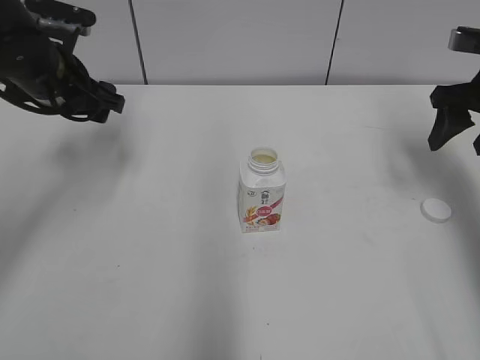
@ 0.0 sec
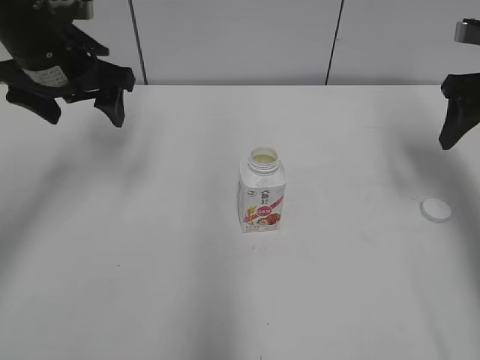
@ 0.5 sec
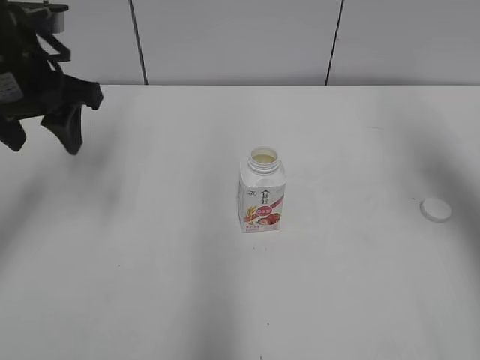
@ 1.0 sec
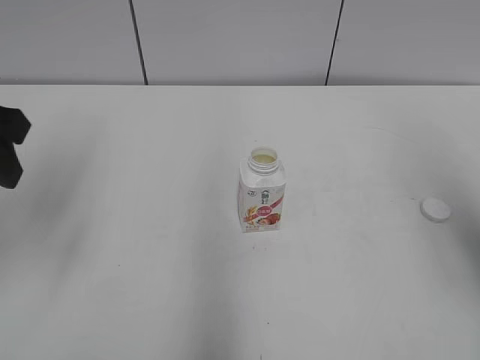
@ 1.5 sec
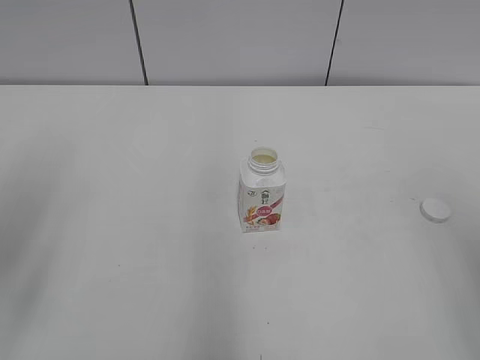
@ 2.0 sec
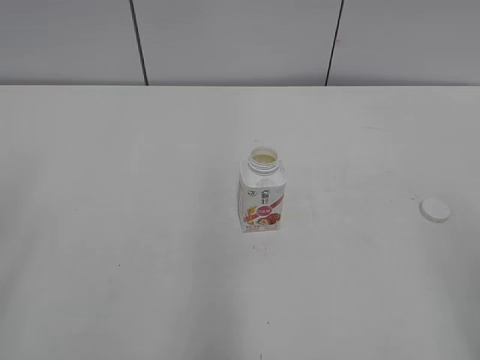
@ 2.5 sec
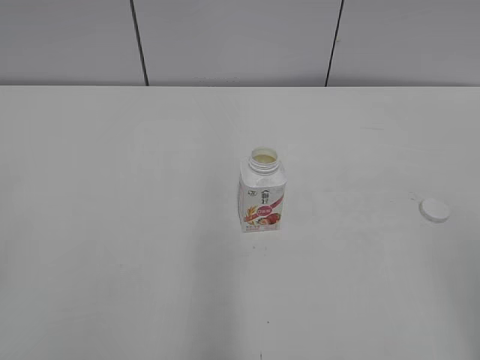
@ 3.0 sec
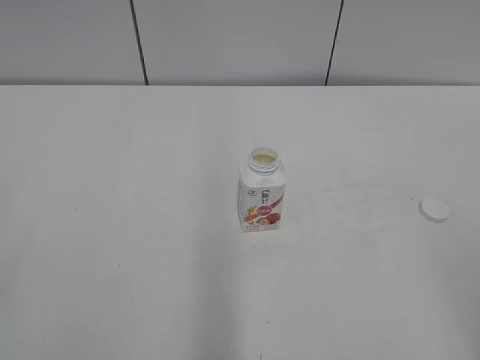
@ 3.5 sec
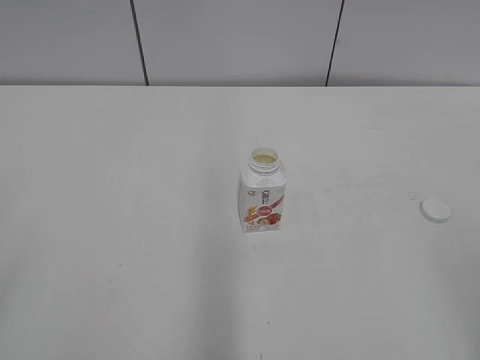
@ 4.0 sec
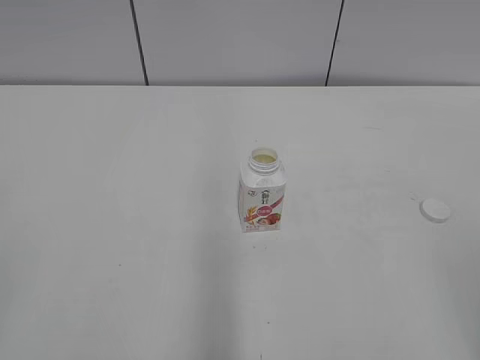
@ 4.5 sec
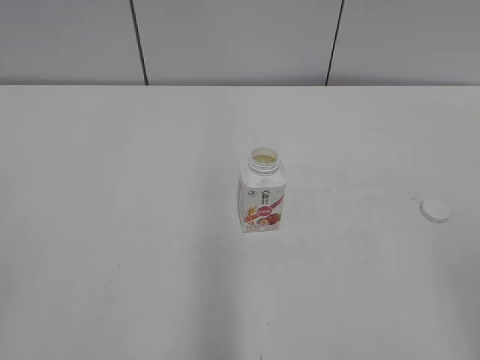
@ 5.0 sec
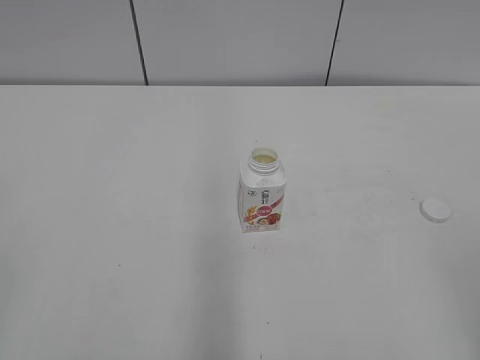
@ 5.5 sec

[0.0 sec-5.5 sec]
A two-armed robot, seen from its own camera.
0.0 sec to 2.0 sec: Both grippers travel together backward, some 25 cm. The left gripper closes its fingers.

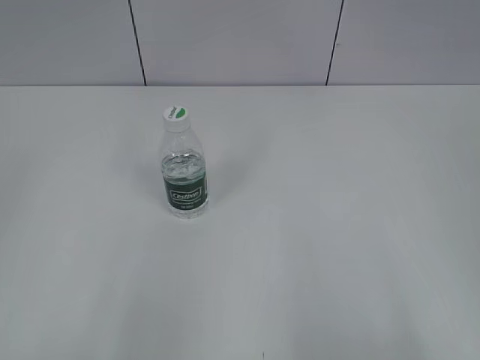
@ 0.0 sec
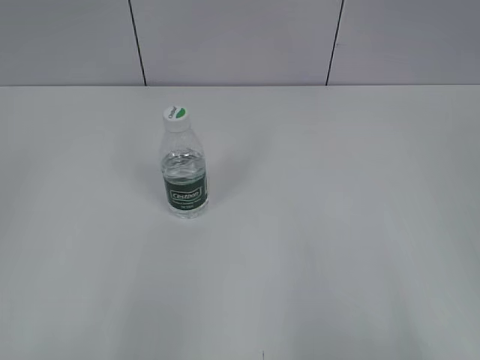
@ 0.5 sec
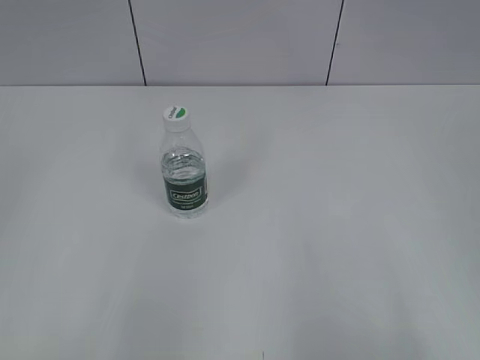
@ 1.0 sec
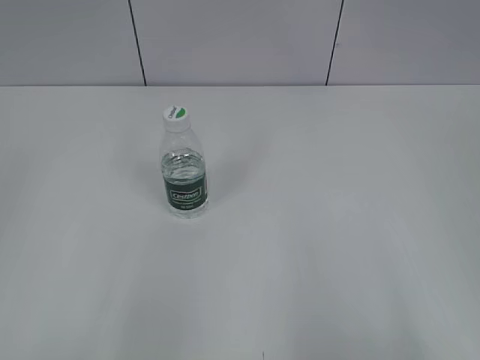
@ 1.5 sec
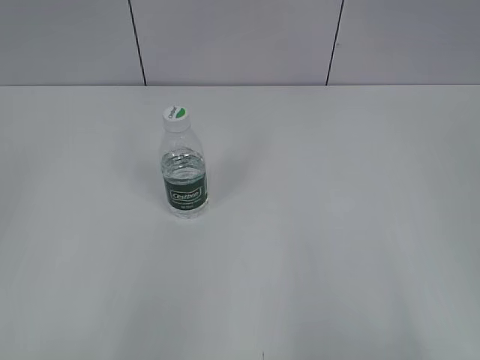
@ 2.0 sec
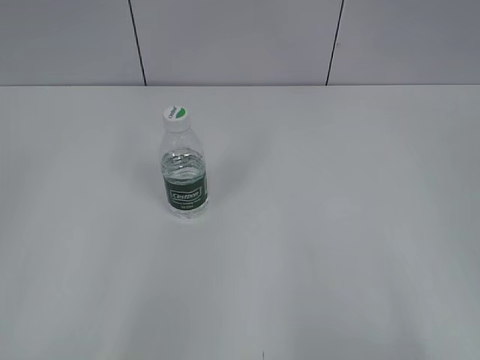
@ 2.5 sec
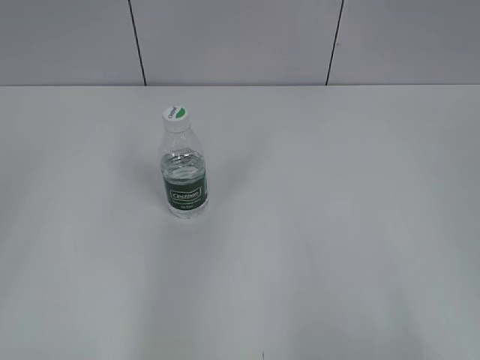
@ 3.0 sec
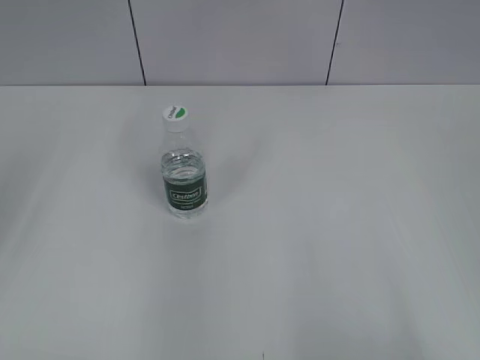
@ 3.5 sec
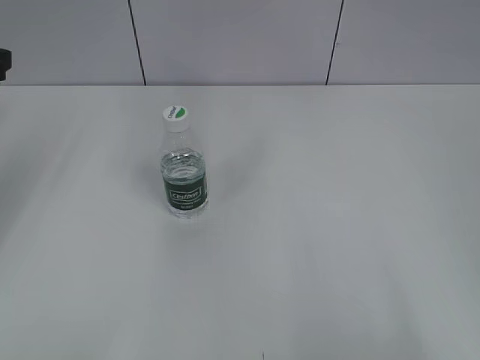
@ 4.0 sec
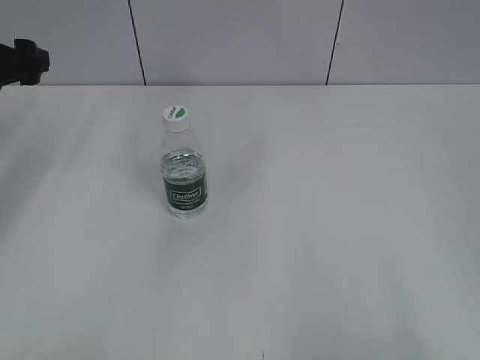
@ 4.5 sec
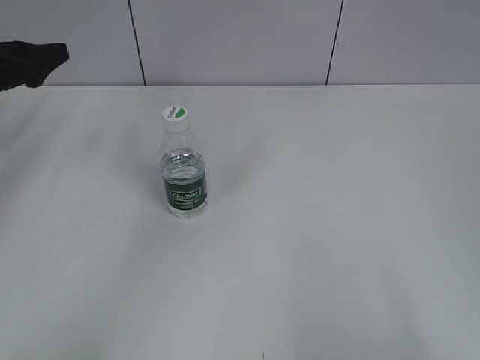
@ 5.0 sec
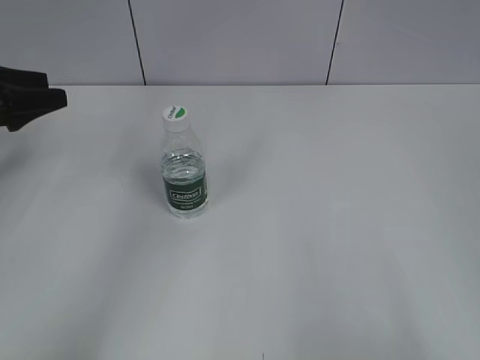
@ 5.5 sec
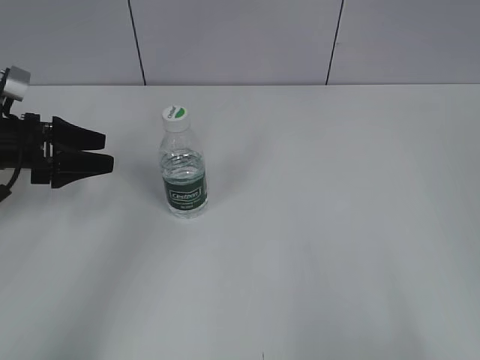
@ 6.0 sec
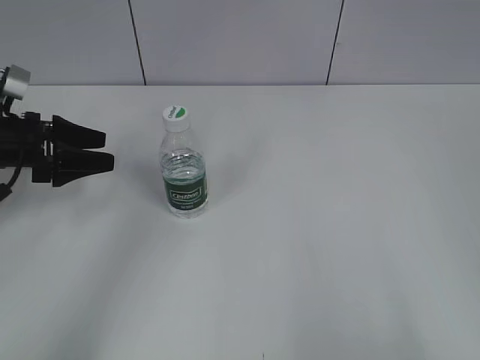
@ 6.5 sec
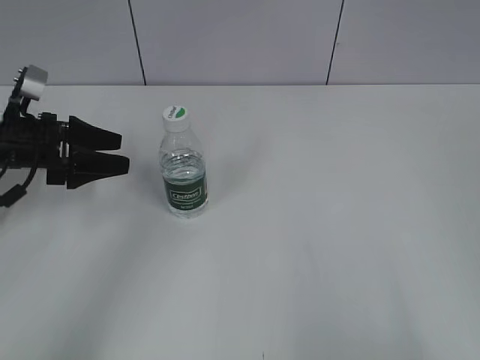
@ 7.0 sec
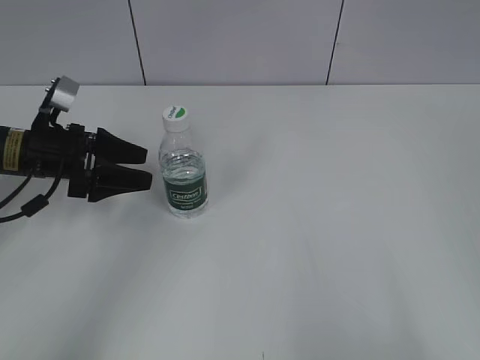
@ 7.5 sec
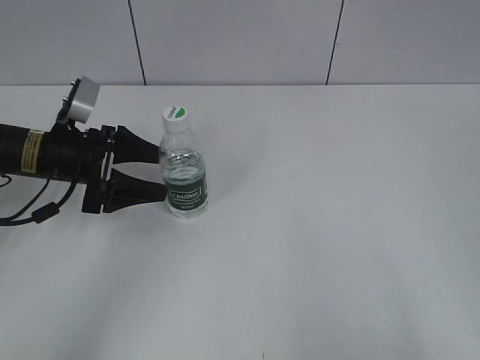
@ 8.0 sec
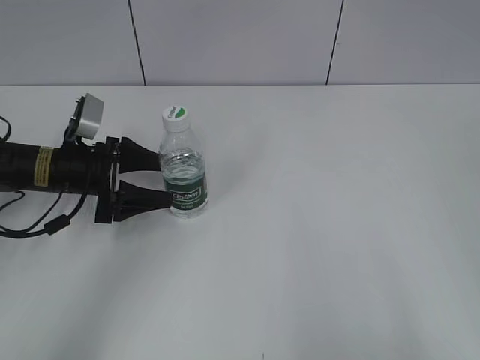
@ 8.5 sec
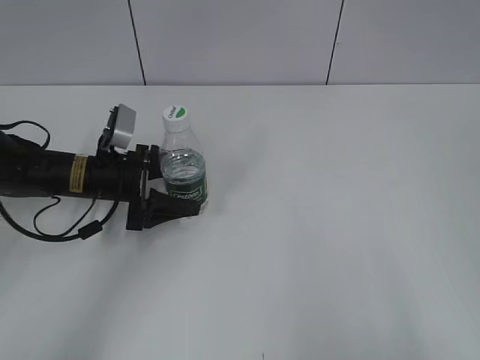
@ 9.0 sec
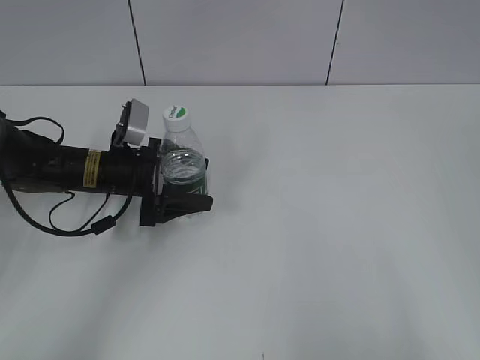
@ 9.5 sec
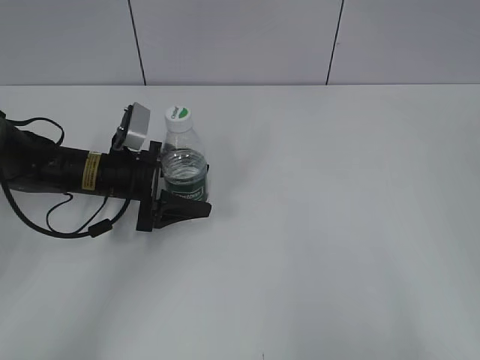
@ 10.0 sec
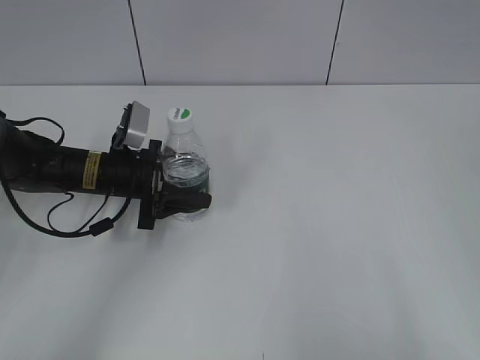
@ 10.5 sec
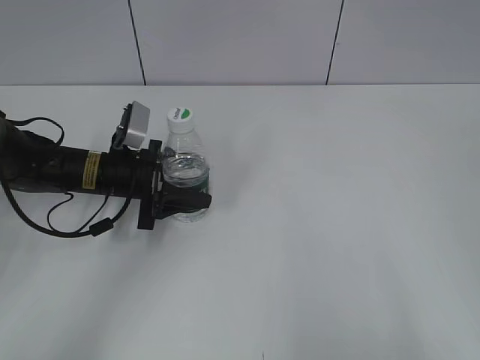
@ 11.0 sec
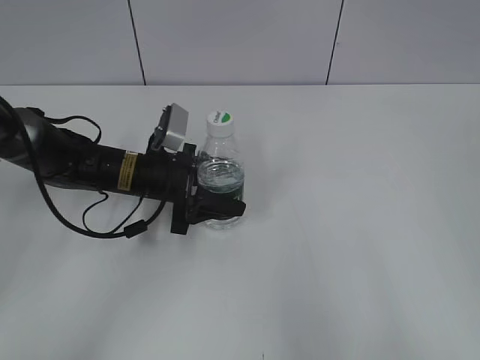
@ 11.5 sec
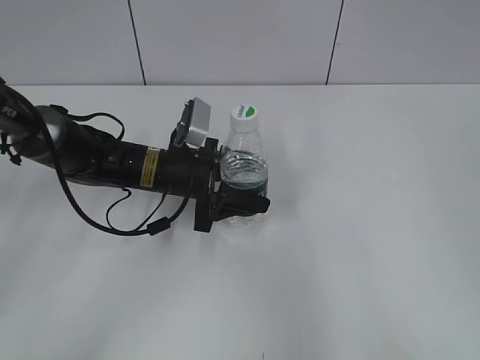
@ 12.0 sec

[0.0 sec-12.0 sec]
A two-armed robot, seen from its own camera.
Step, 0.0 sec to 10.5 sec: Grasp the bottle and move it to the center of the table with the left gripper.
4.0 sec to 6.0 sec: The left gripper goes roughly 15 cm downward and forward.
6.0 sec to 8.0 sec: The left gripper shifts approximately 10 cm to the right.
8.0 sec to 10.0 sec: The left gripper shifts some 5 cm to the right.
10.0 sec to 12.0 sec: The left gripper goes about 10 cm to the right, and closes its fingers.

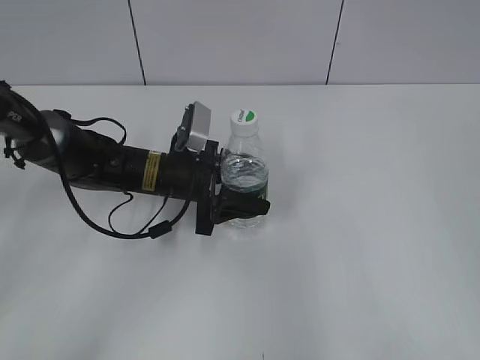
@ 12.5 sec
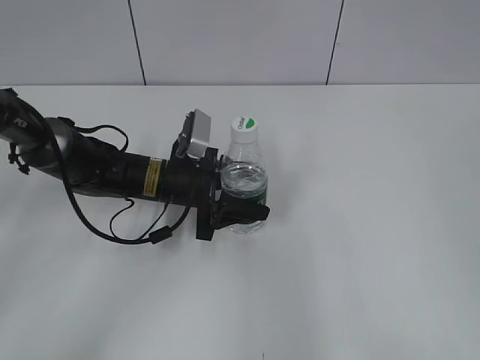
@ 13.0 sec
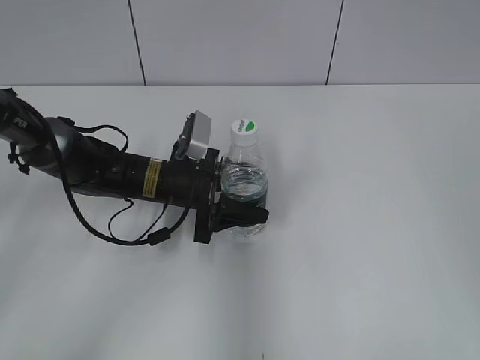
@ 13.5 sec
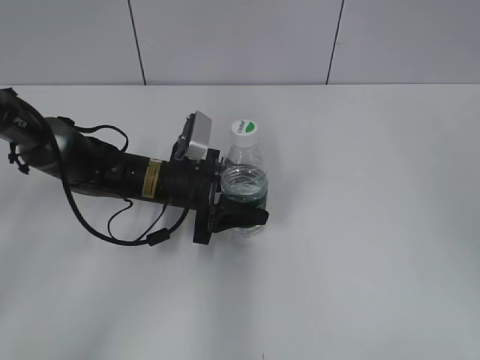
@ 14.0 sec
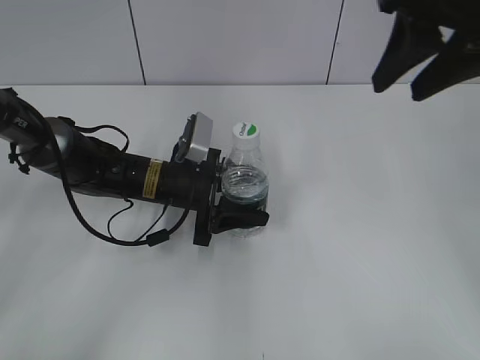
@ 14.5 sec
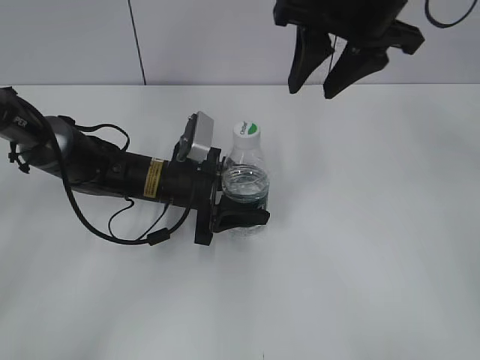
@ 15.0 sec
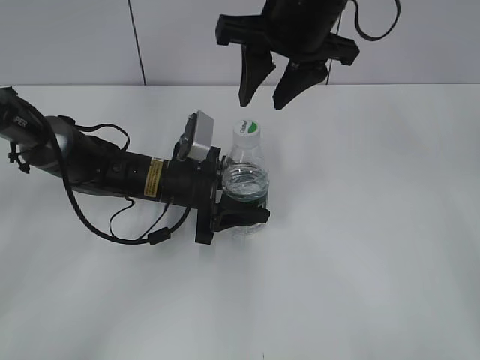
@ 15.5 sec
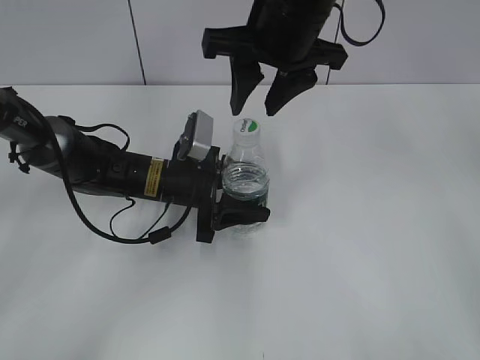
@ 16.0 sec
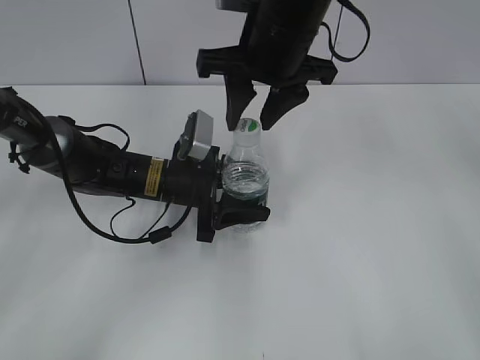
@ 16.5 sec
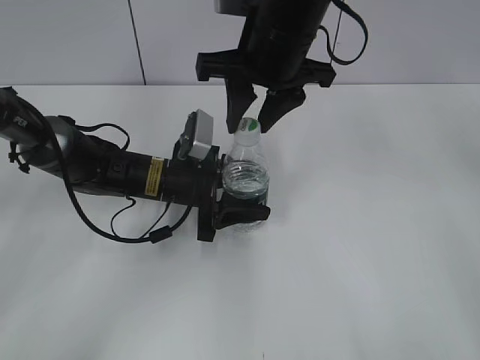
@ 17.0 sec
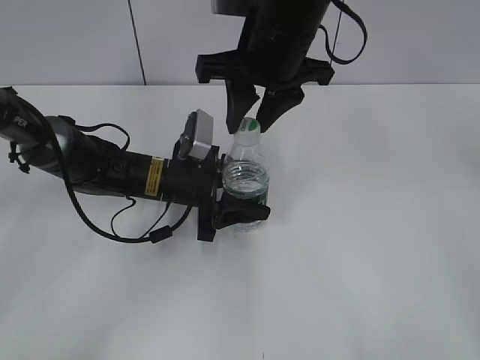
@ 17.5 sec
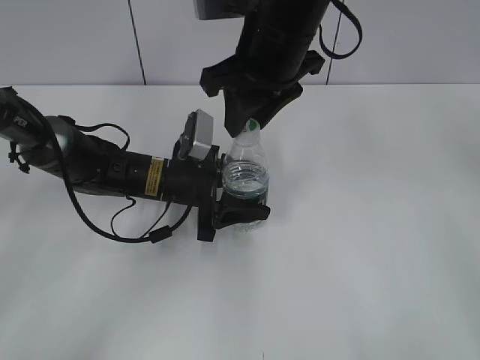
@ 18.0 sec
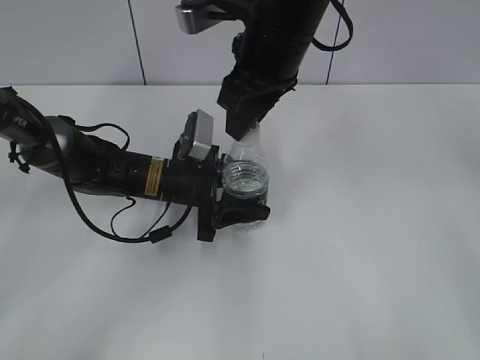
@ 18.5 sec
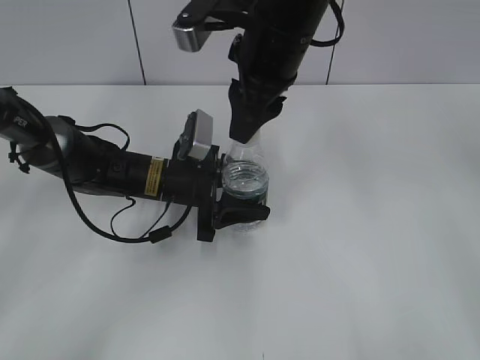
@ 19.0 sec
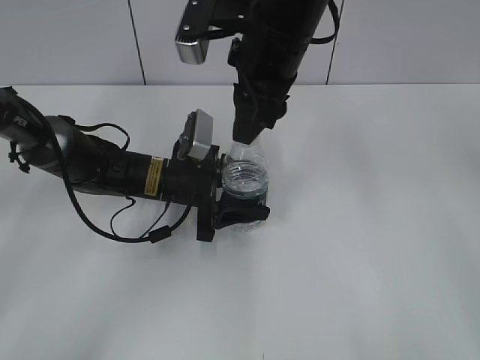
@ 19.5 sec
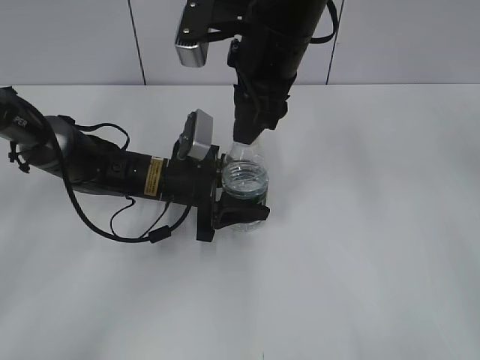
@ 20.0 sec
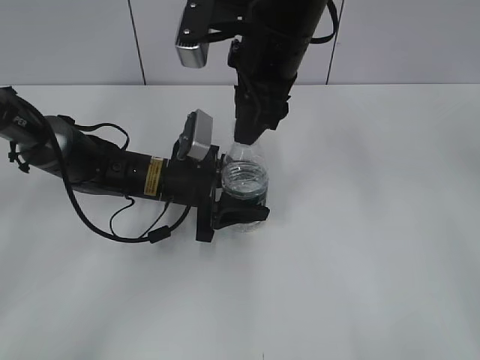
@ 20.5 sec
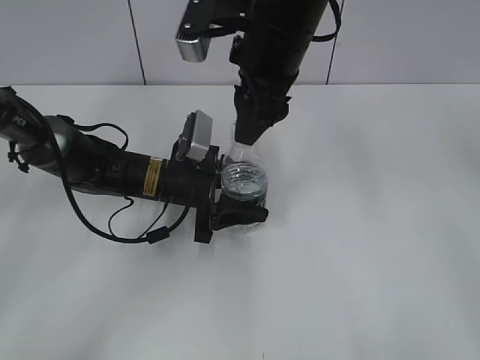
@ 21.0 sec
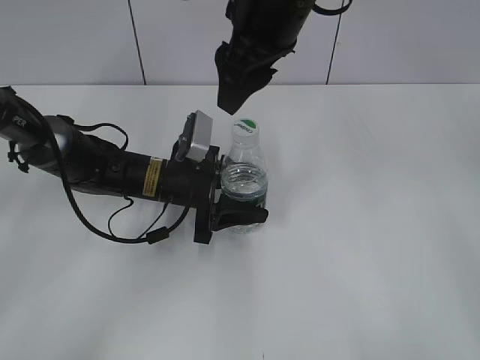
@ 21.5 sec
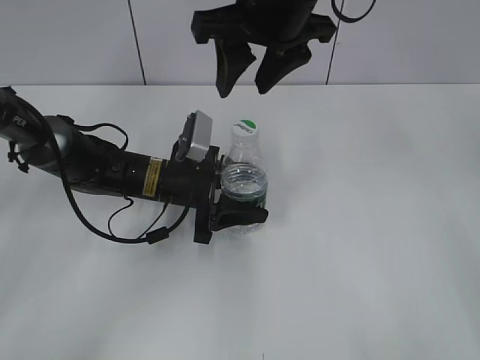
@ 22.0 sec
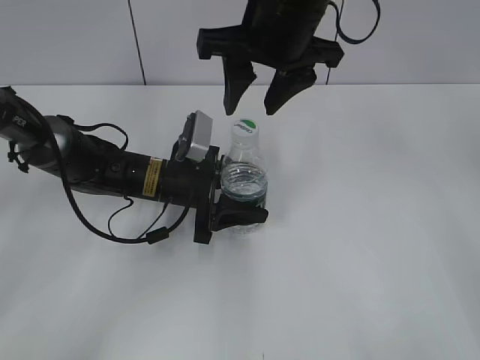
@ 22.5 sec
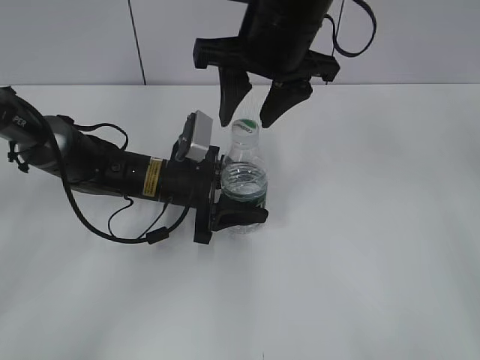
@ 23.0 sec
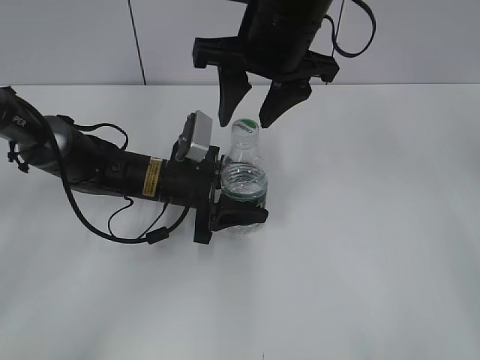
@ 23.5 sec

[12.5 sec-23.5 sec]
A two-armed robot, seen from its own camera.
12.5 sec to 14.5 sec: The right gripper moves forward and to the left, some 25 cm.
14.5 sec to 16.0 sec: The right gripper heads to the left and downward, covering about 15 cm.
16.0 sec to 18.0 sec: The grippers make only small movements.
20.0 sec to 21.5 sec: The right gripper opens up.
